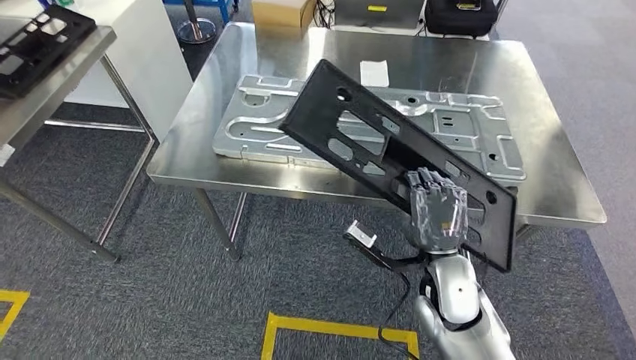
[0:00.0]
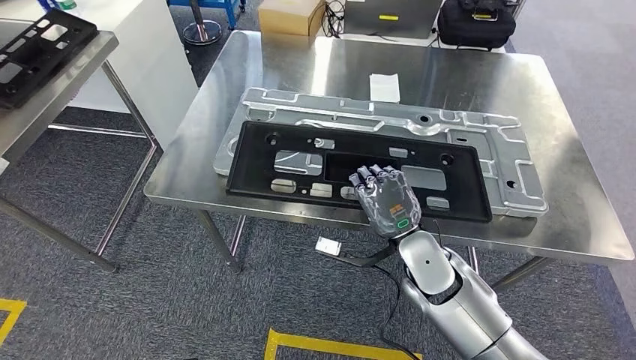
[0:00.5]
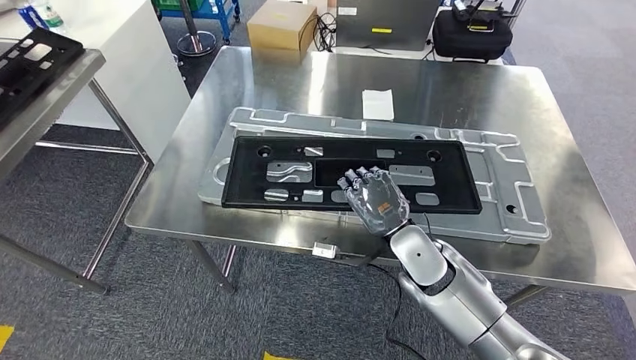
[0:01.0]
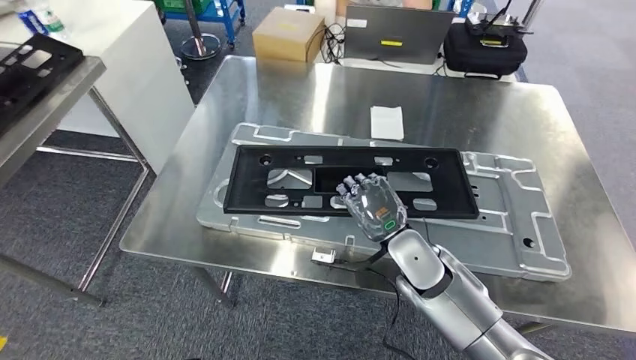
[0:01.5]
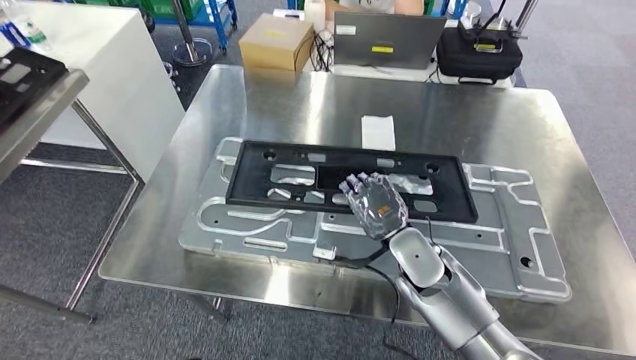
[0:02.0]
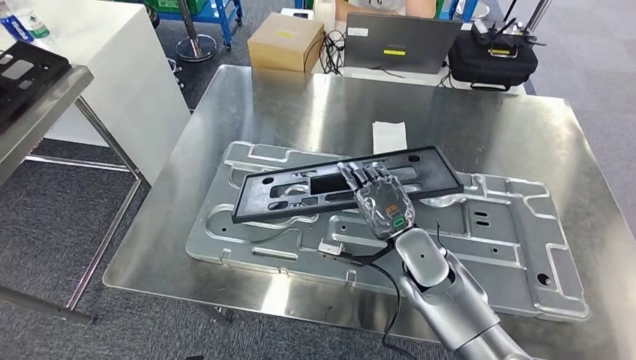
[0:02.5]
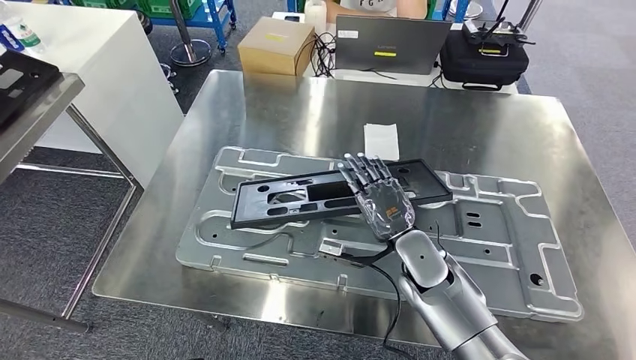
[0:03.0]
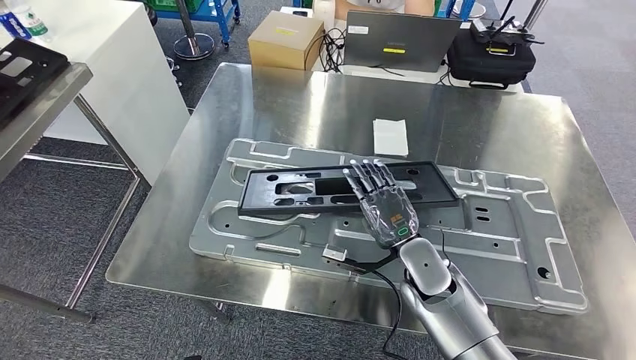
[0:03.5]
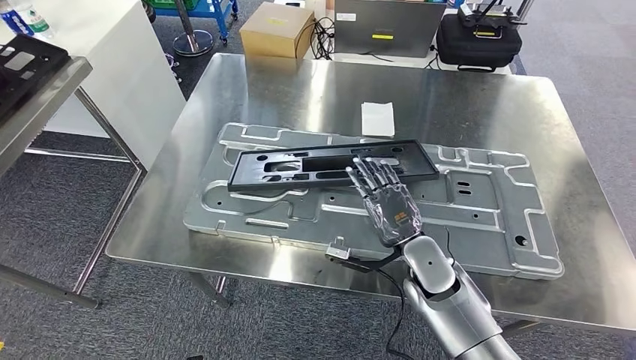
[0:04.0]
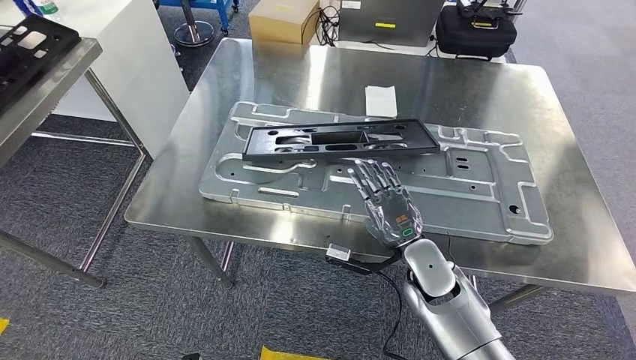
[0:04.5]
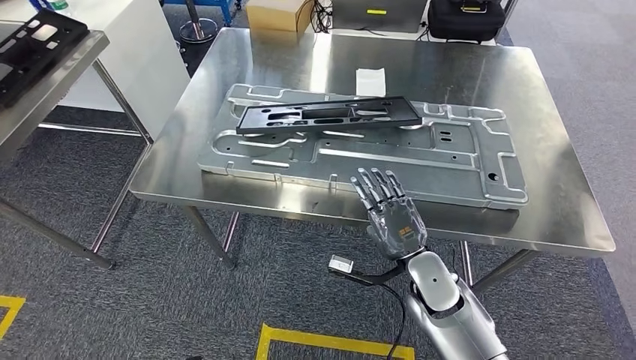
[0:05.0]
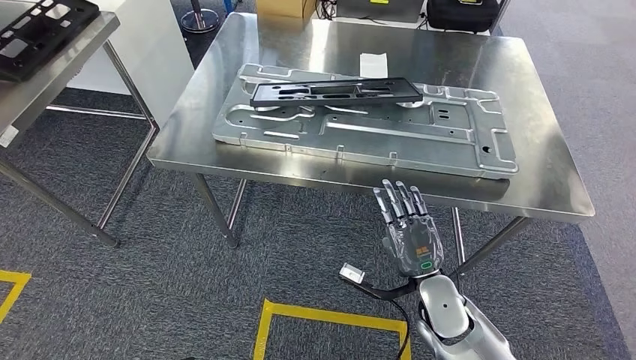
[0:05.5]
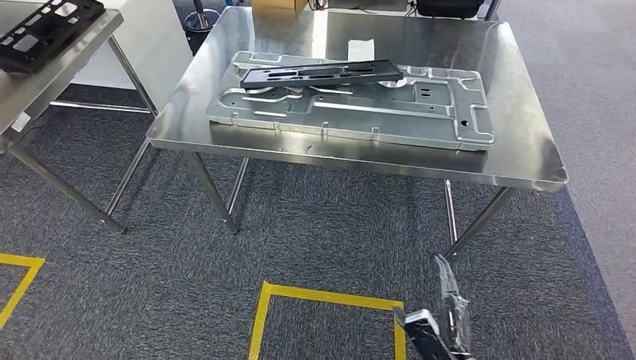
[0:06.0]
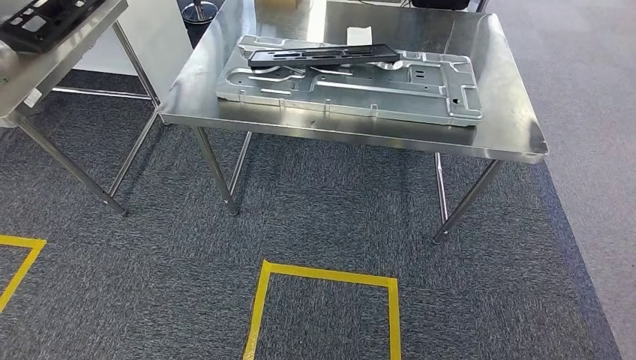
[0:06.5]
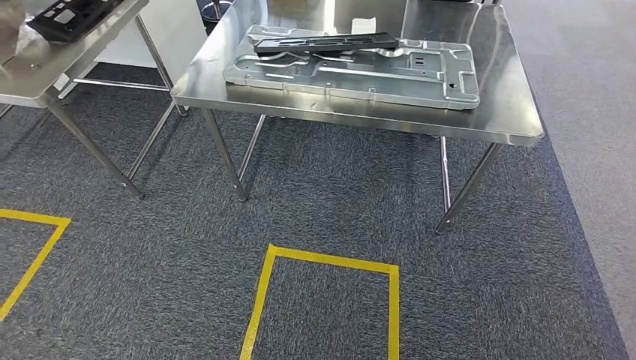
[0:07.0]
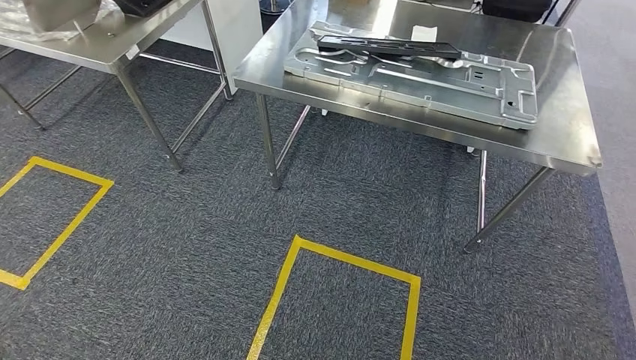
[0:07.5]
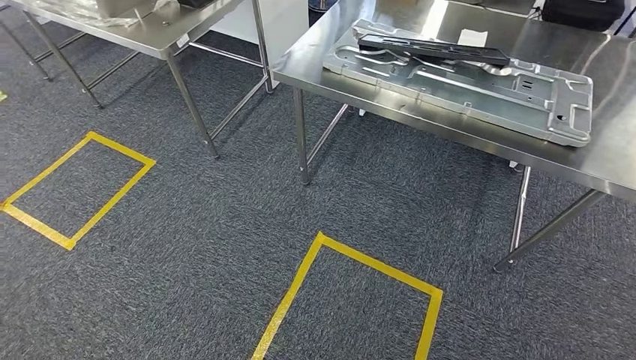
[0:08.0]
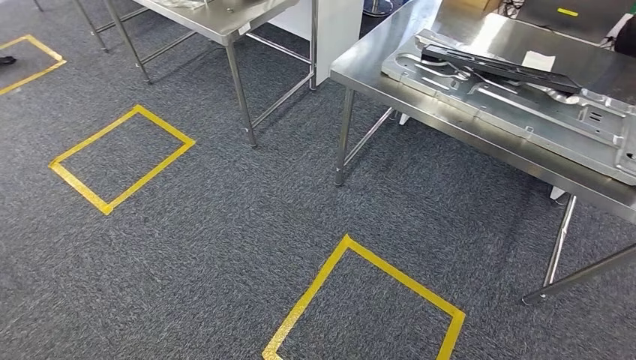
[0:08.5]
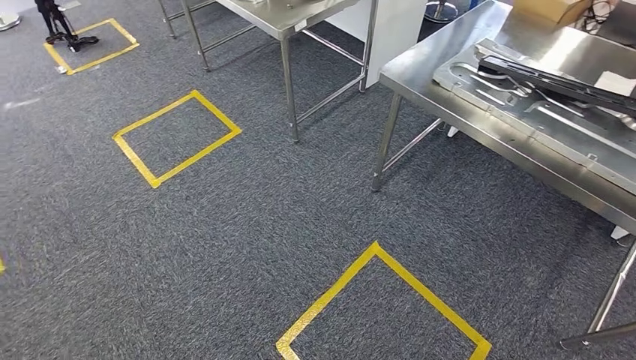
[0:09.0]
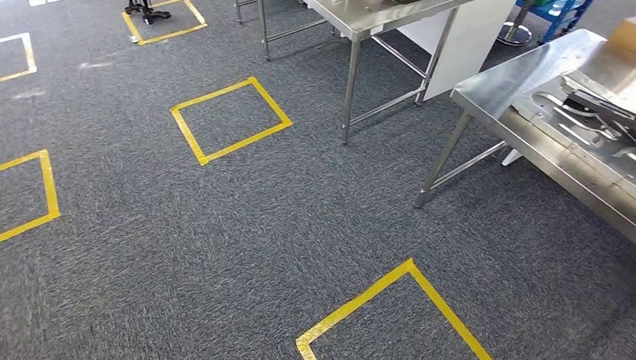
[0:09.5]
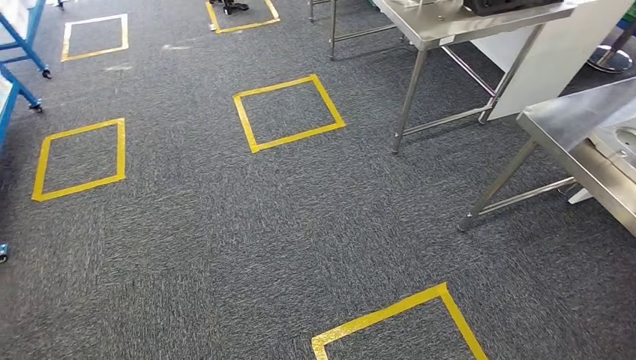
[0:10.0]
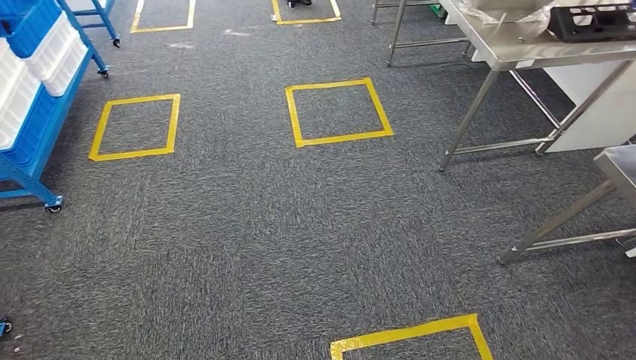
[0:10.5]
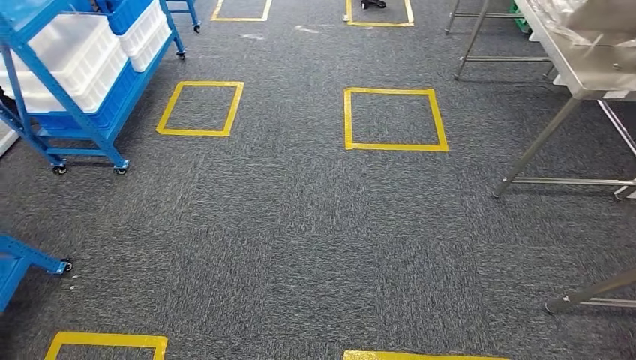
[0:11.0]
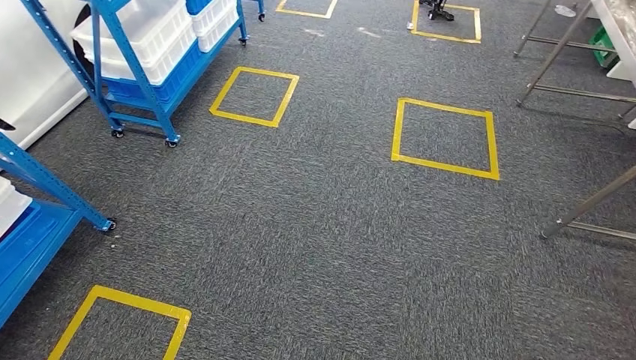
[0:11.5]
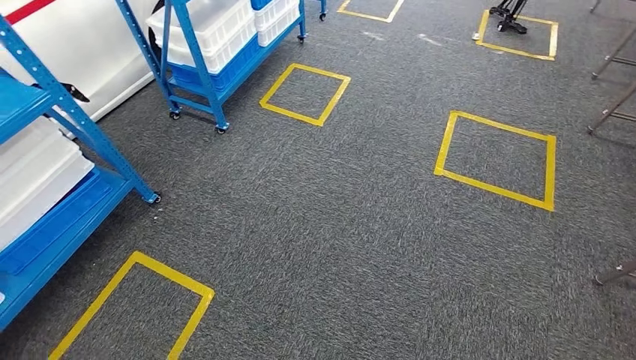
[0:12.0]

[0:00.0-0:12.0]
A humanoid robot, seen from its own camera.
Step, 0:00.0 to 0:07.5: Insert the large material into the corresponding slot on the workbench.

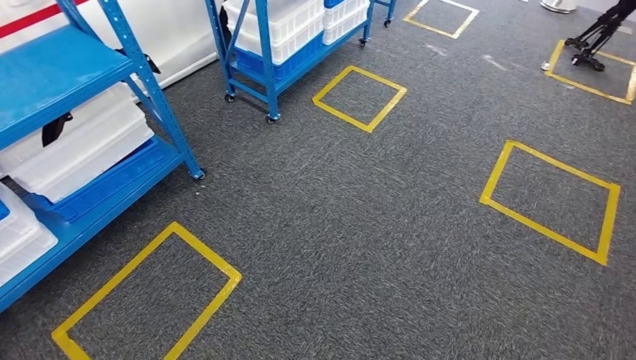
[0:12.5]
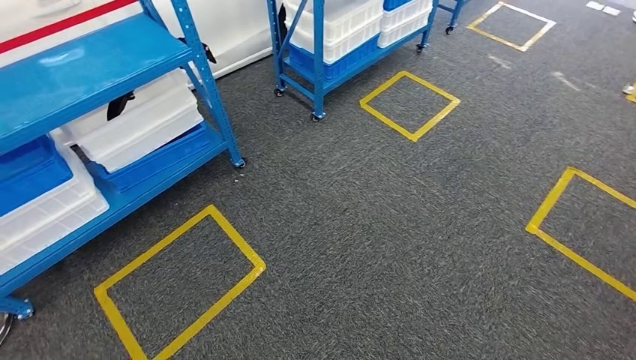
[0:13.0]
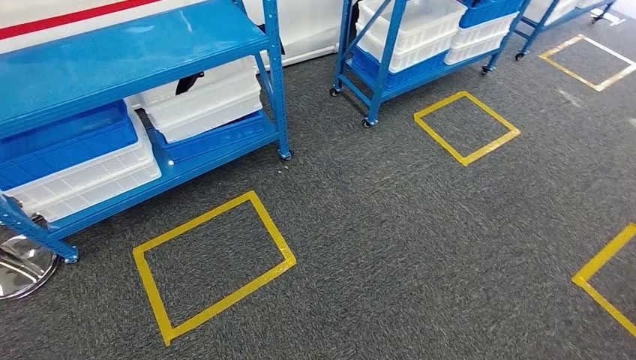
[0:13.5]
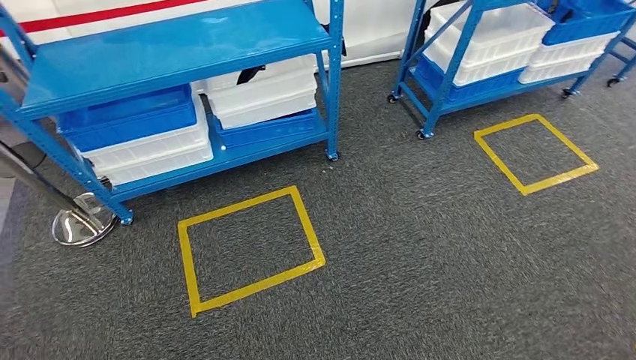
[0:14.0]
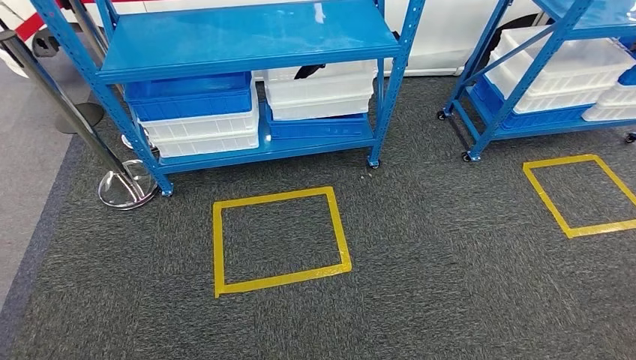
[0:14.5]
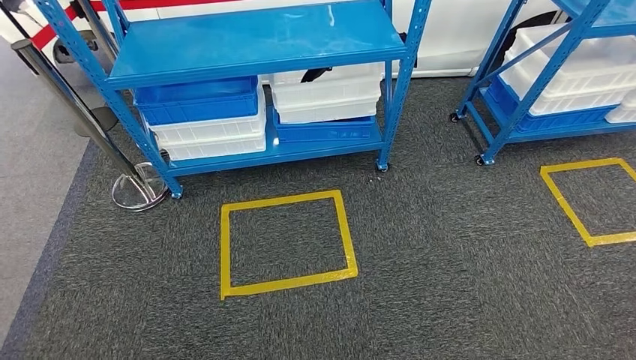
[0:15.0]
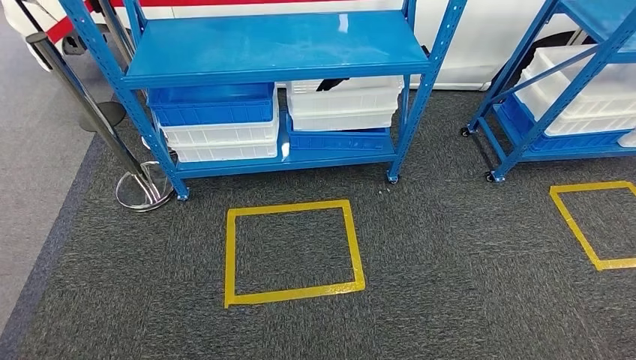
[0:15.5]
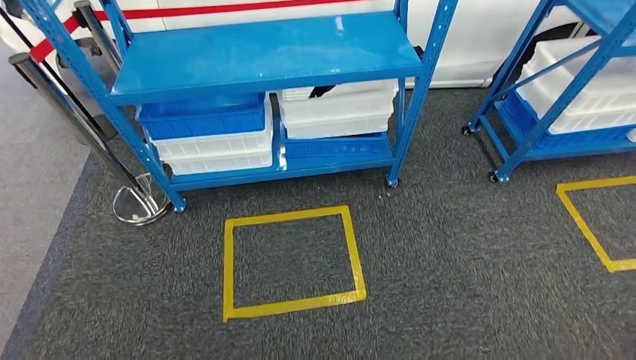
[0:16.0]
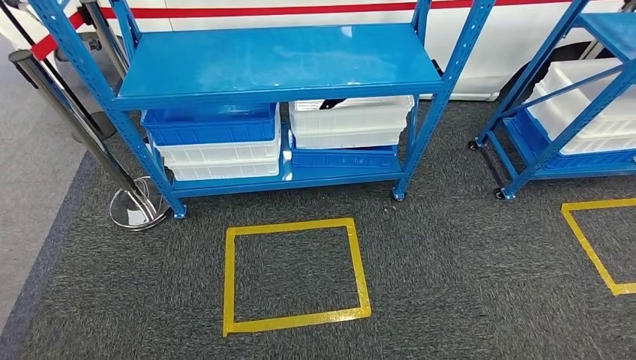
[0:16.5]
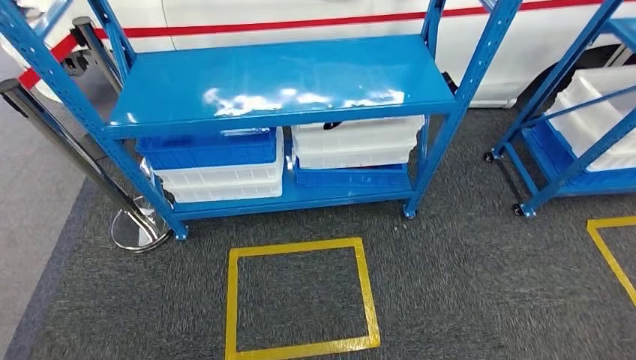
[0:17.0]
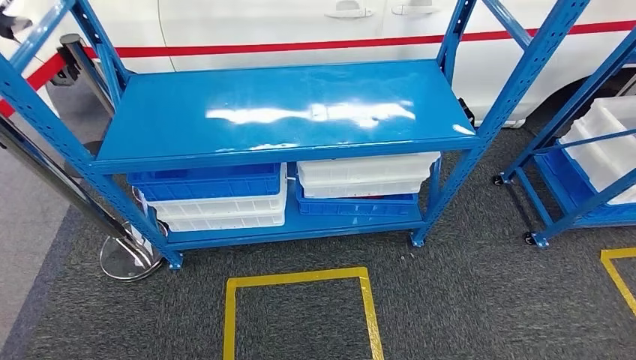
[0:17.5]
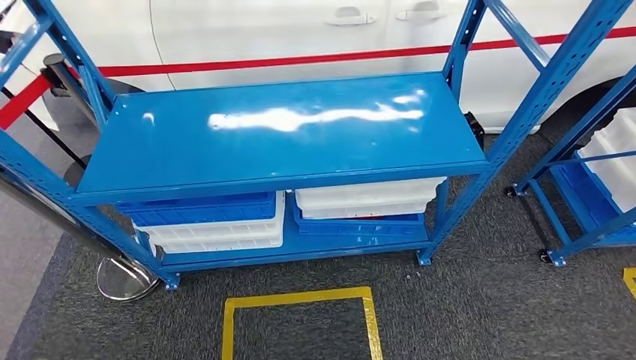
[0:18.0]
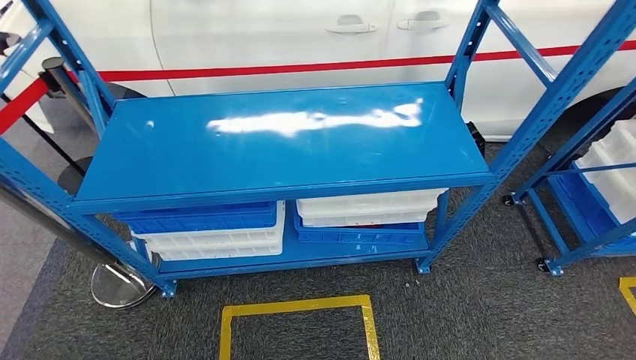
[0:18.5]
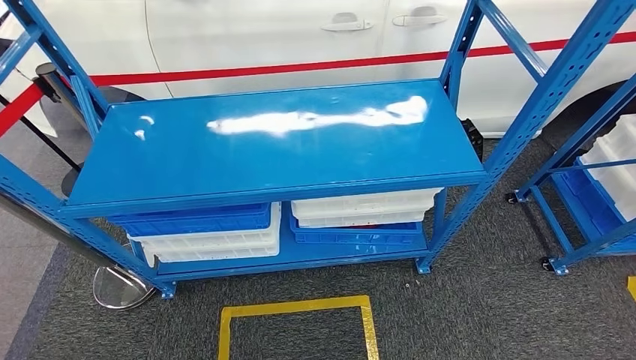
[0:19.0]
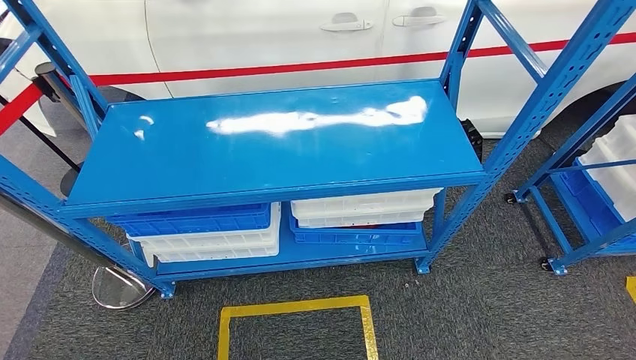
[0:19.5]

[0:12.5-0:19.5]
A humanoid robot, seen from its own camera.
Step, 0:12.5 to 0:19.5: Move to the initial position of the shelf.
